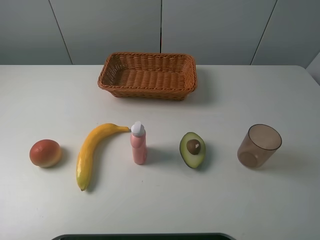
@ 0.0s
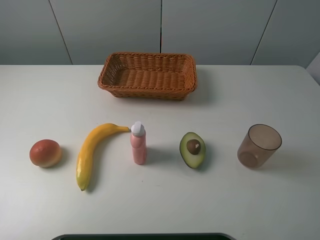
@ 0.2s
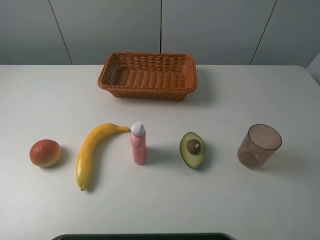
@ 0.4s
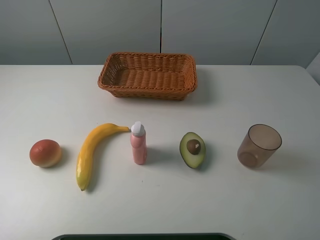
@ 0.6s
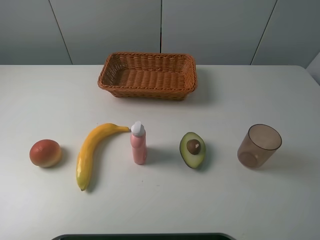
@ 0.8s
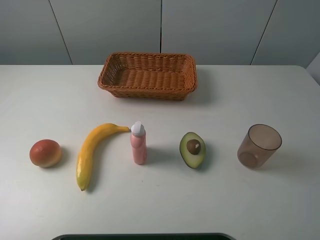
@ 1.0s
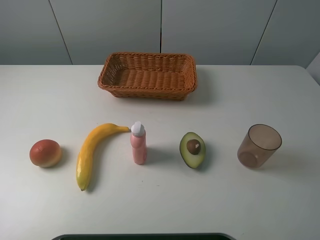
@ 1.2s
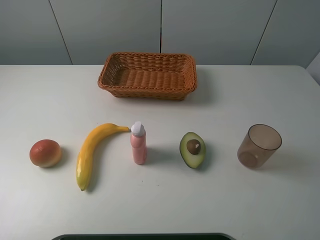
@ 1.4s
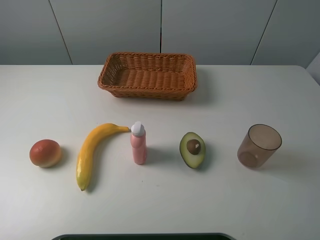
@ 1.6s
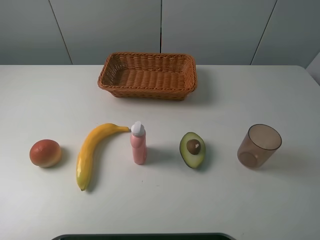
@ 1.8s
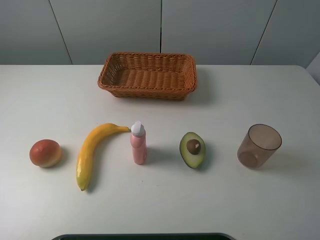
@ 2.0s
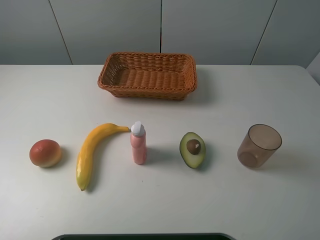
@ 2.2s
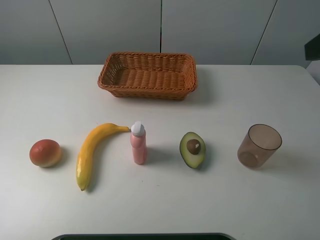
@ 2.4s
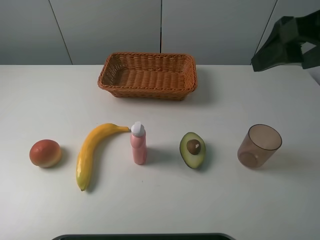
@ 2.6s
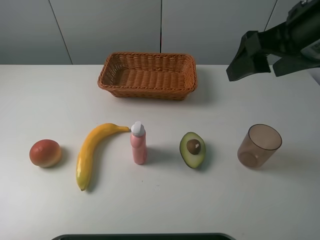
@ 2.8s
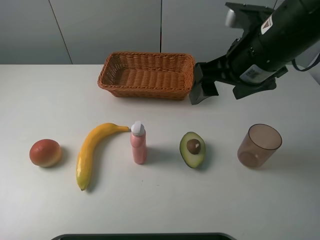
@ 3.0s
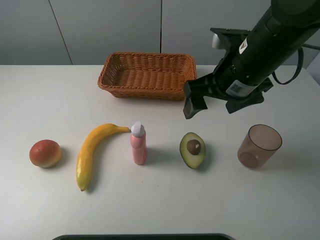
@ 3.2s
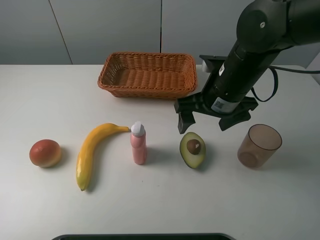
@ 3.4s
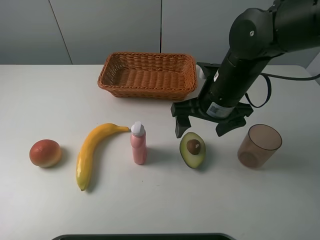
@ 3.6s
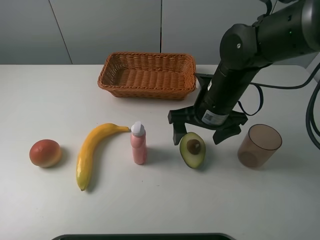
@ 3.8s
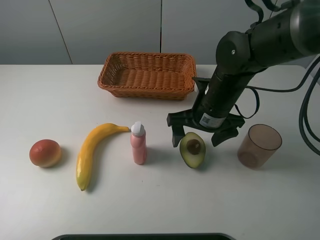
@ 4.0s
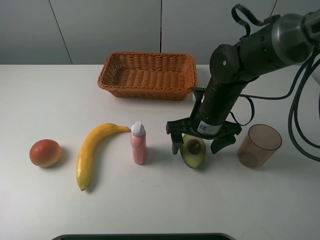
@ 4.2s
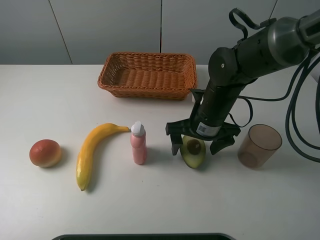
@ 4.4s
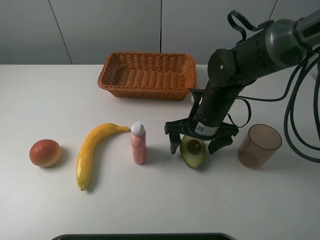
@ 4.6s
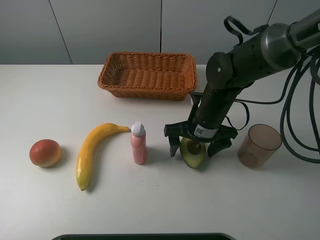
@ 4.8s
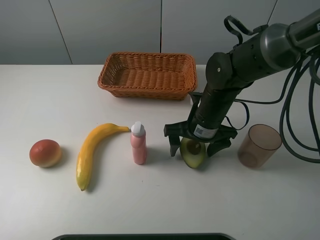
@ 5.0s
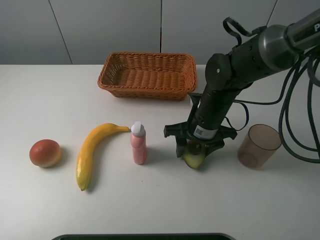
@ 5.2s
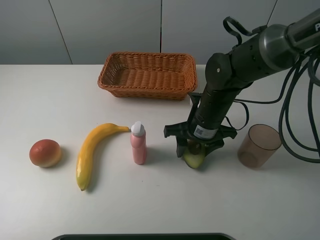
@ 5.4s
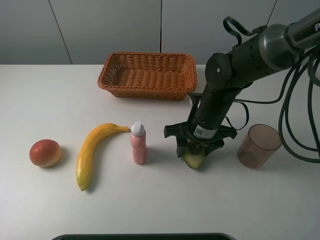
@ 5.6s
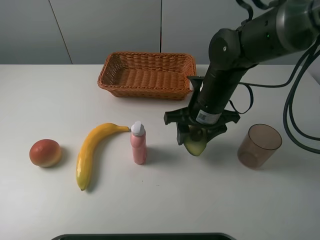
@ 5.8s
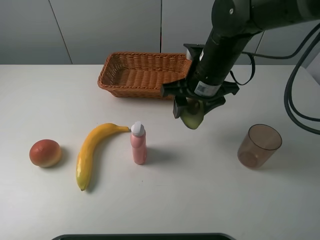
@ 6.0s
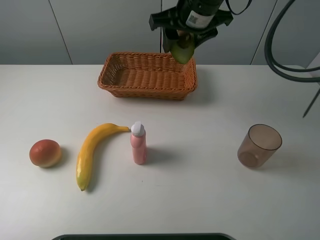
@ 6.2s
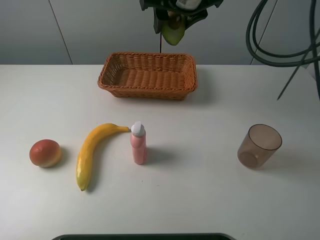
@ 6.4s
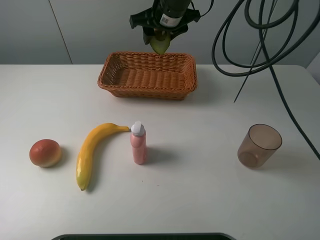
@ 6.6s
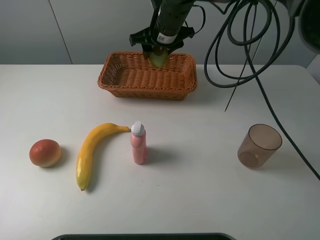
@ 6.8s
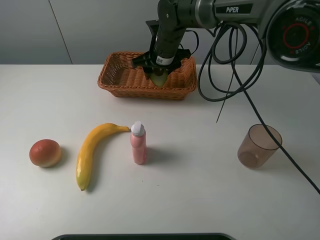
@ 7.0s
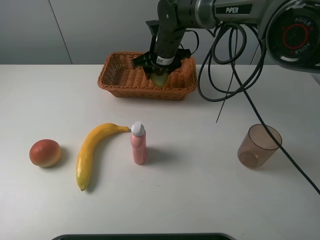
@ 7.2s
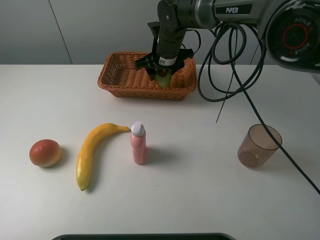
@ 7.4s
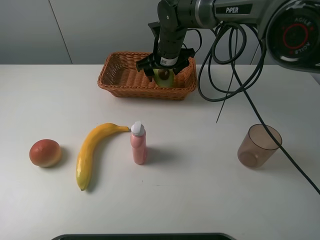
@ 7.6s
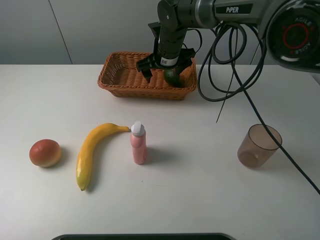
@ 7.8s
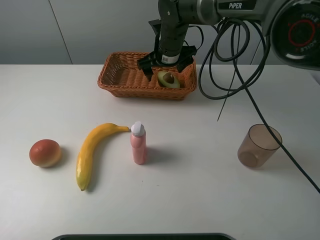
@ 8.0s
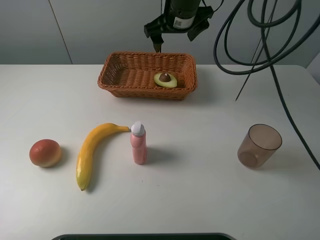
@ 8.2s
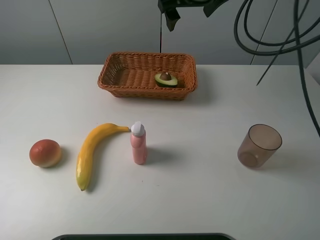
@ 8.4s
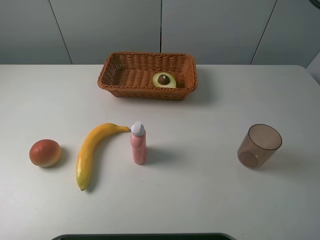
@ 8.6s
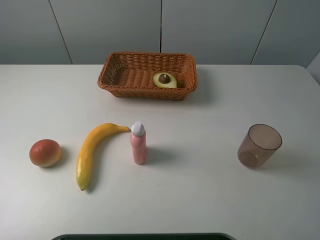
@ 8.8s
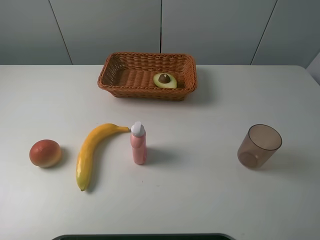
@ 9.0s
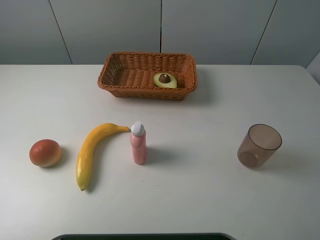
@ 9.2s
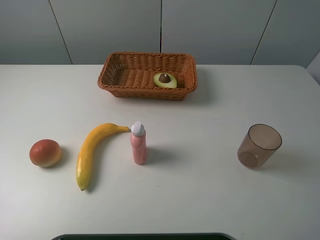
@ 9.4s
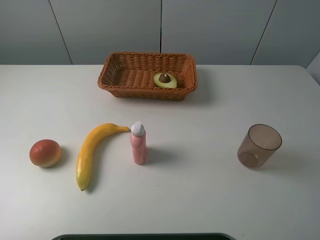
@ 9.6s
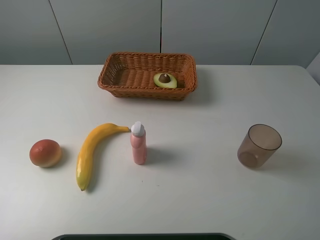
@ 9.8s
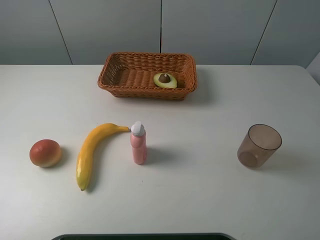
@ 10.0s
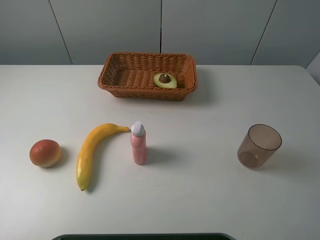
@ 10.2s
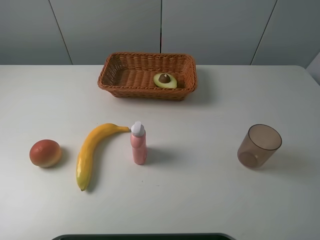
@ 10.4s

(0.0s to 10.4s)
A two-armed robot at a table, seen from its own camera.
Task of the whole recording: randomly pick up an item from the table and put it in the basket.
Step, 0.0s - 5.2s: Grasp the avocado with the right gripper.
Step, 5.4s - 8.4s: Place the avocado into the basket with the right gripper.
0.0s - 1.4s: Neither gripper changes place.
1.4s - 3.0s: The right gripper shifts roughly 30 cm forward and to the left.
3.0s - 4.4s: The right gripper goes approximately 15 cm downward.
4.4s - 6.0s: The right gripper shifts roughly 10 cm upward, and closes.
6.0s - 7.4s: The right gripper moves forward, to the left and downward, some 15 cm.
7.4s - 9.0s: The right gripper travels upward, to the right and backward by some 40 cm, and opens.

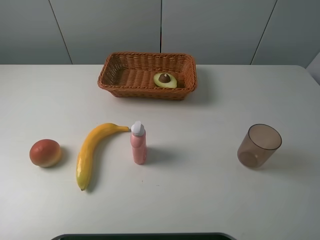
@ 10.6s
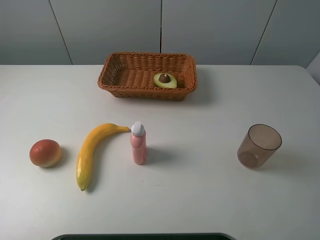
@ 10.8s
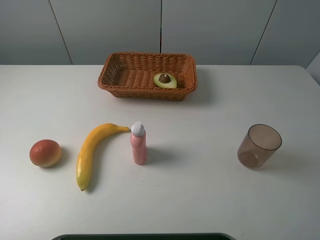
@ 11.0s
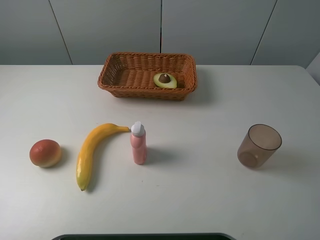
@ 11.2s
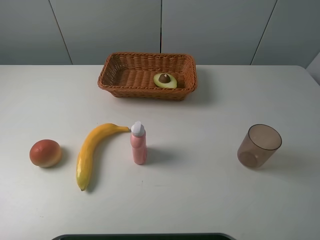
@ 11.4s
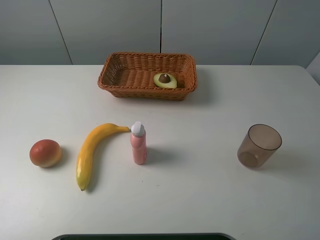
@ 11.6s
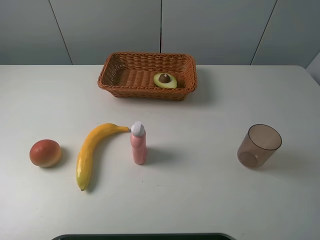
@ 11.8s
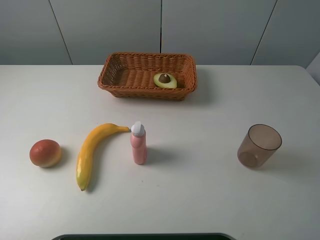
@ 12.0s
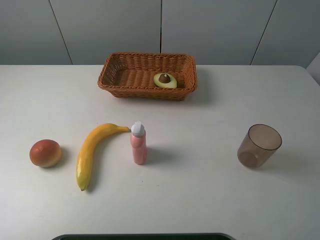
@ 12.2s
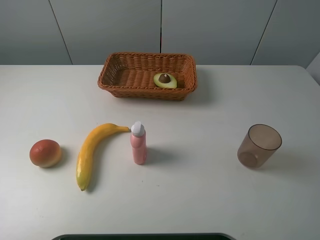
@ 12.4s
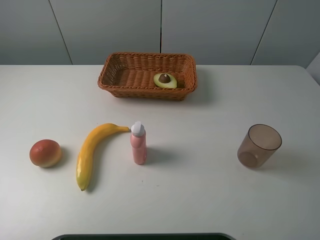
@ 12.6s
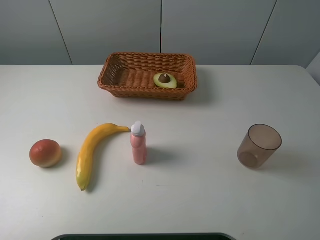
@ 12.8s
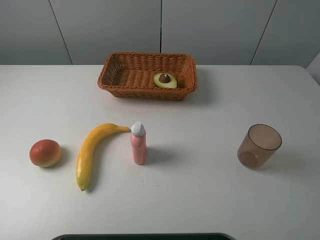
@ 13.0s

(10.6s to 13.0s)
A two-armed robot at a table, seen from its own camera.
Task of the whole recording: randomly pick up an item from the table and put it in the basket.
11.8s - 13.0s: The two grippers keep their place.

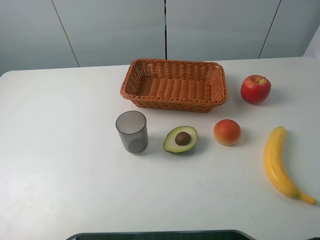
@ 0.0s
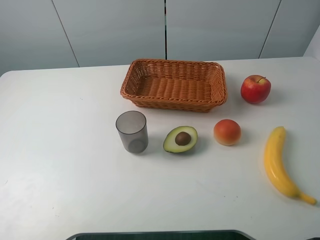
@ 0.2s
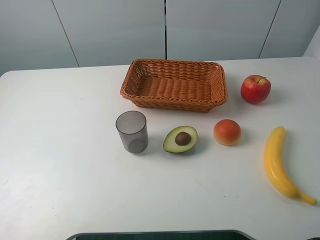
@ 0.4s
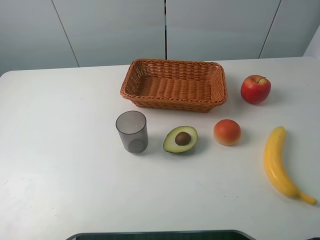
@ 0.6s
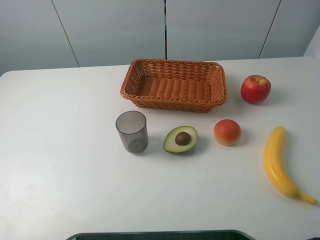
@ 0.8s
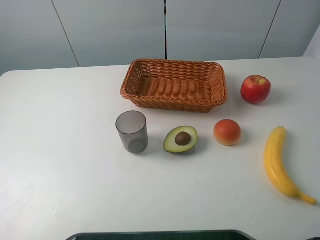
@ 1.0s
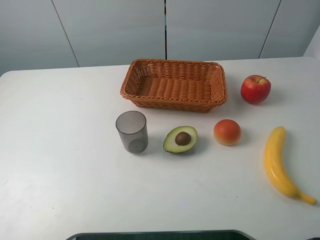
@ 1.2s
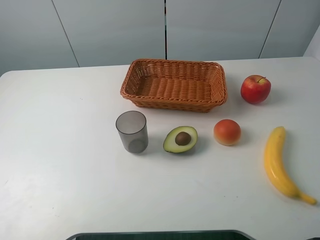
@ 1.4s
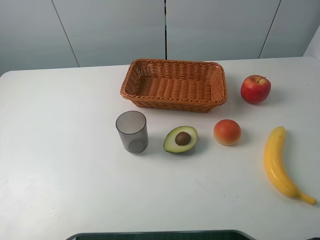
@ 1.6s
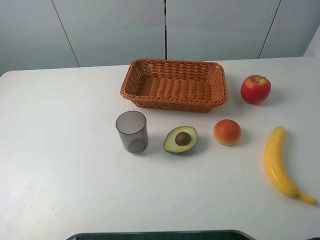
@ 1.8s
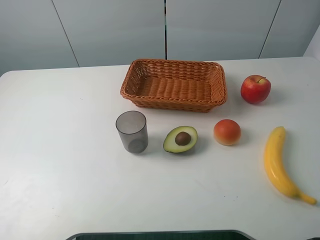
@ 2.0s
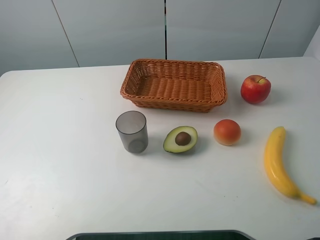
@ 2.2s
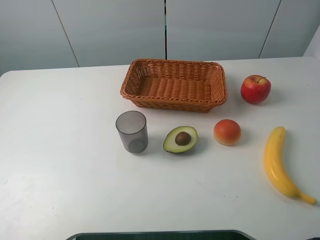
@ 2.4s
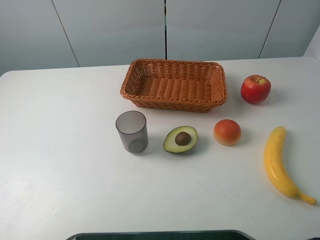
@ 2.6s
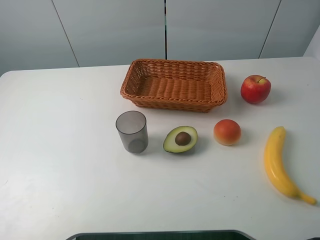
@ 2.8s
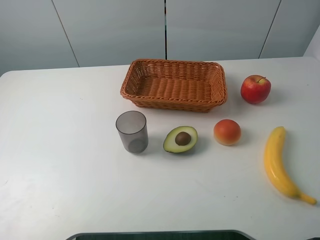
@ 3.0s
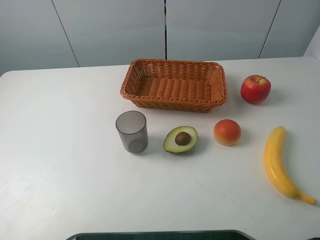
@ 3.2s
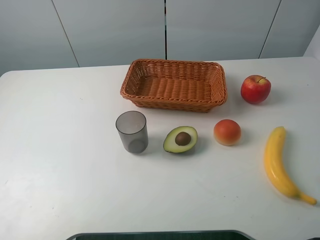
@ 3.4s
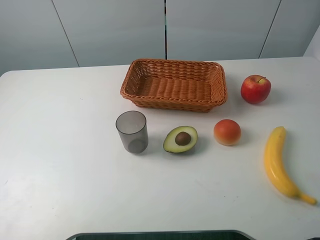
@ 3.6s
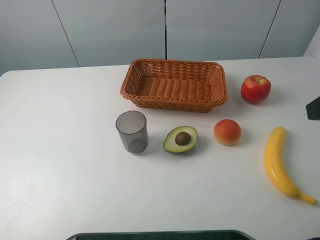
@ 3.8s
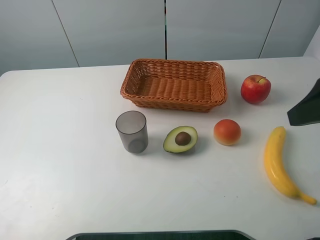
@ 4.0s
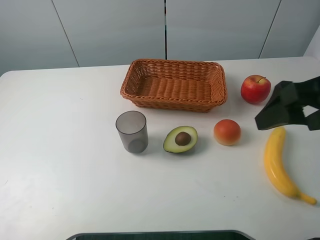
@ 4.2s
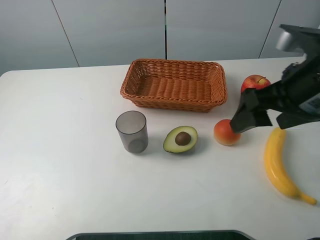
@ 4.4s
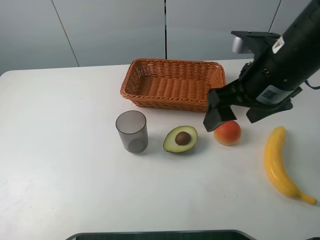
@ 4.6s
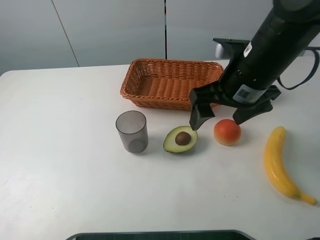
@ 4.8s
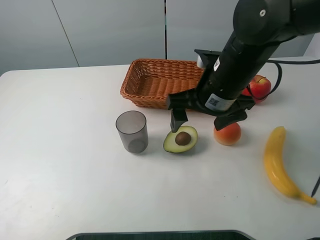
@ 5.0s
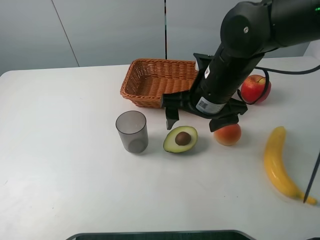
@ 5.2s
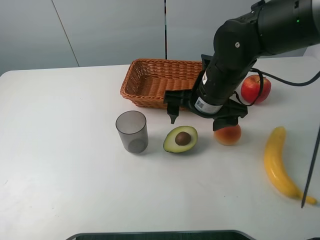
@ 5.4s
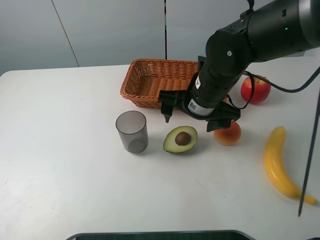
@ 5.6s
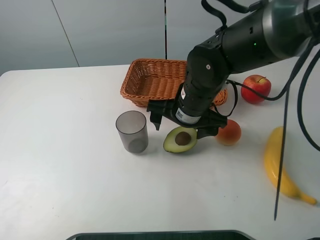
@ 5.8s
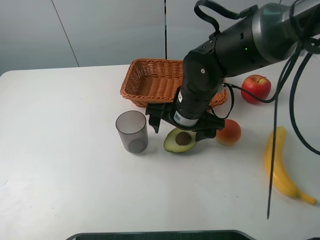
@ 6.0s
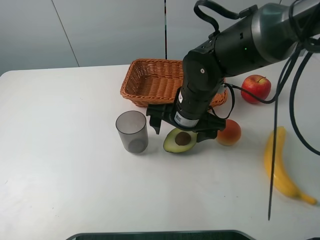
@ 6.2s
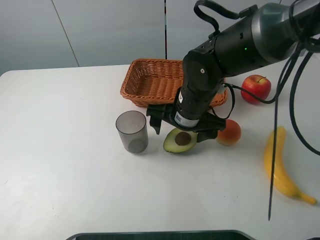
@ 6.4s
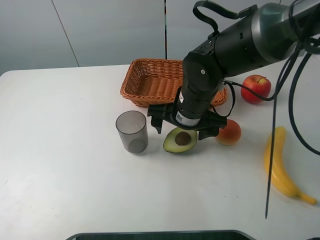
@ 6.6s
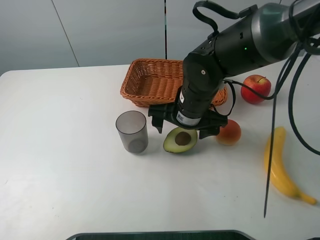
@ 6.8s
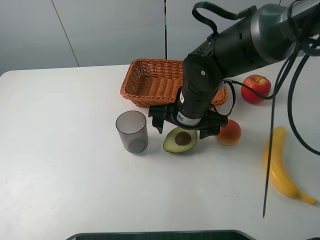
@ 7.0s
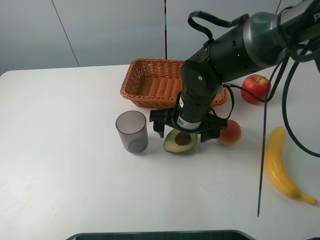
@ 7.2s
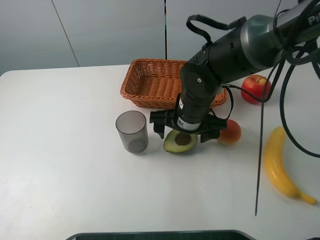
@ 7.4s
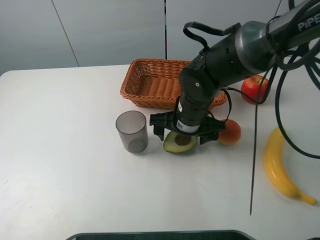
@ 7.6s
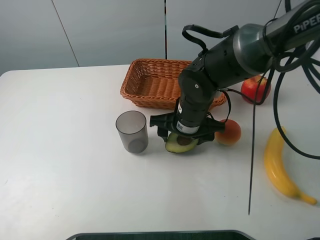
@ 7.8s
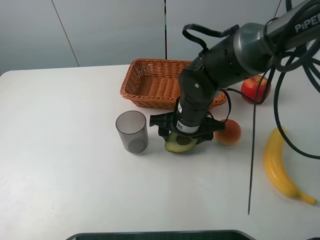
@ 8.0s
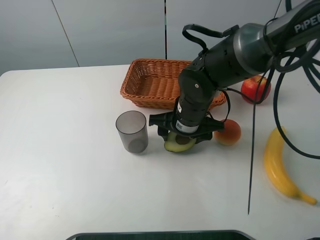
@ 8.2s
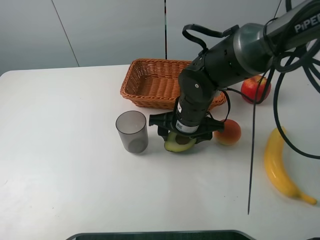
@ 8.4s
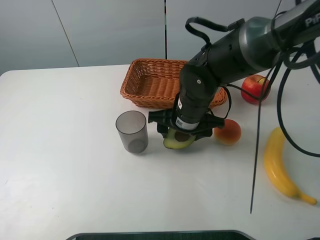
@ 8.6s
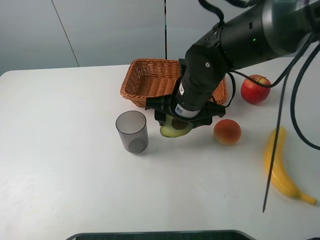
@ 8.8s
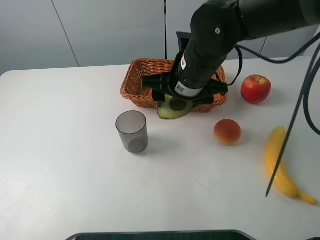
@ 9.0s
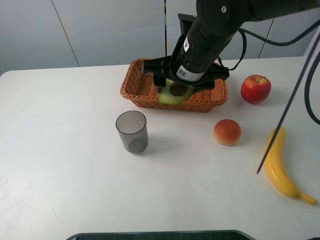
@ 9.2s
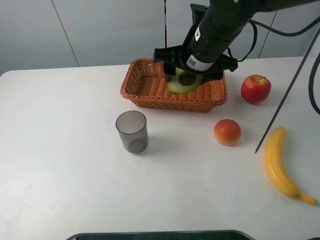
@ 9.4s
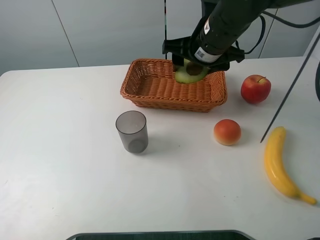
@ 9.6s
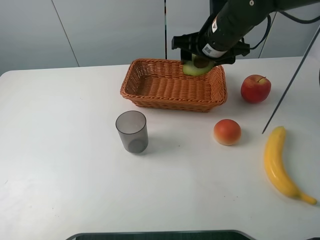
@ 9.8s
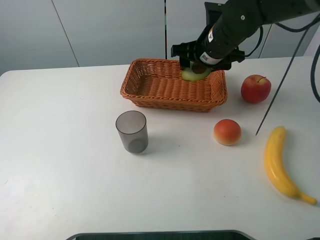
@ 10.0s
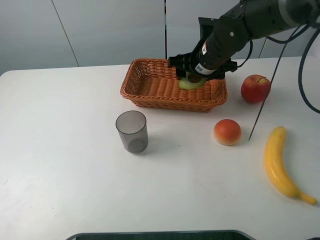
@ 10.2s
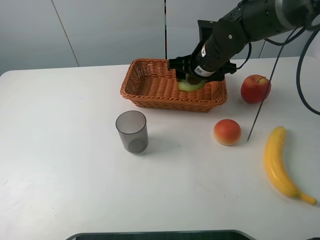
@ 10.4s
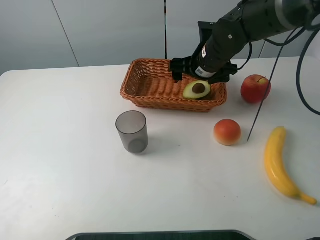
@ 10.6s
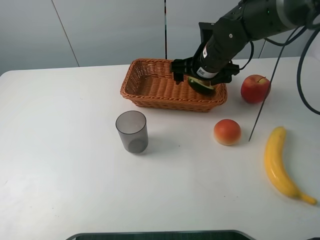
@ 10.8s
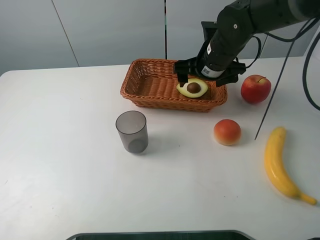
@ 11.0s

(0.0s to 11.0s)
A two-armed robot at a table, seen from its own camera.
Task of the whole recording: randomly pick up an item from the table and put it in the basket.
Step, 0.0s - 8.4s: Grasp the avocado with the right gripper.
0.0s - 1.6s: Neither gripper changes place.
3.2s - 4.8s: The right gripper heads forward, to the left and downward, covering some 25 cm.
4.8s - 6.2s: The right gripper goes roughly 10 cm downward and to the left.
6.2s - 7.8s: The right gripper closes its fingers.
7.8s - 9.4s: The right gripper travels upward by about 10 cm.
9.4s - 11.0s: The right gripper moves about 5 cm, and opens.
